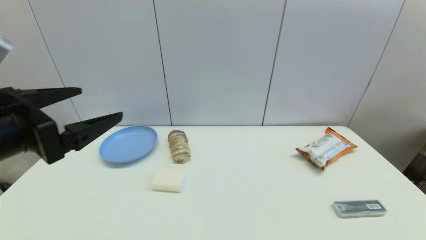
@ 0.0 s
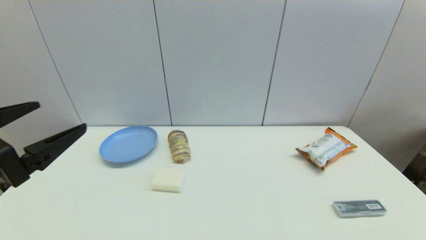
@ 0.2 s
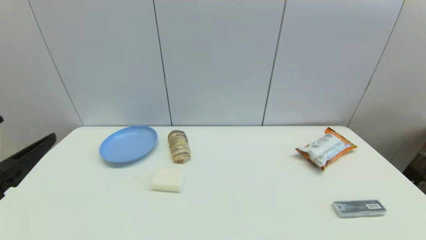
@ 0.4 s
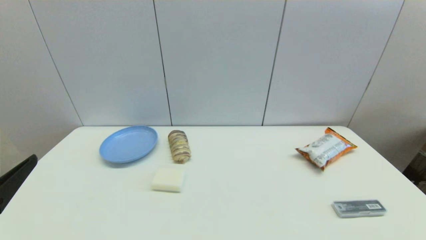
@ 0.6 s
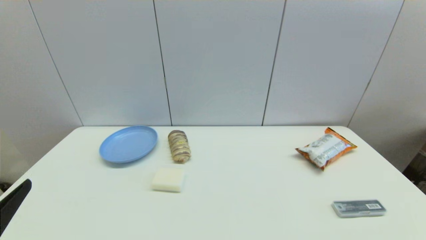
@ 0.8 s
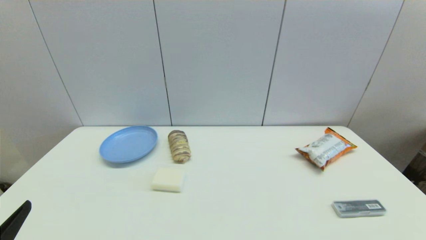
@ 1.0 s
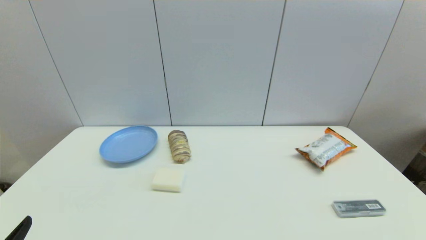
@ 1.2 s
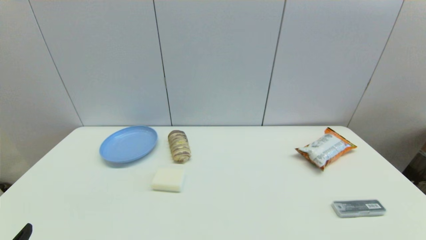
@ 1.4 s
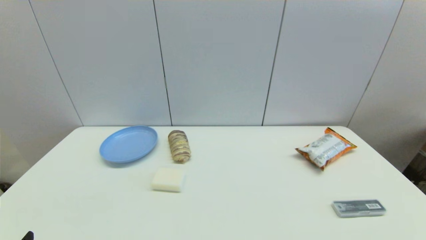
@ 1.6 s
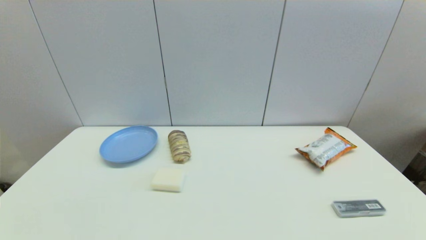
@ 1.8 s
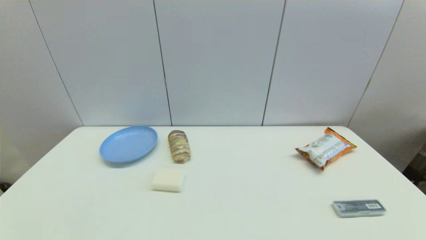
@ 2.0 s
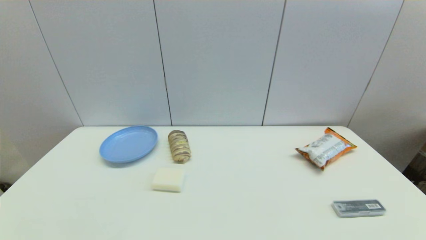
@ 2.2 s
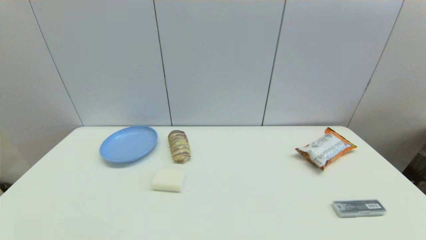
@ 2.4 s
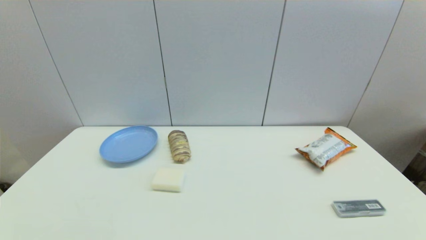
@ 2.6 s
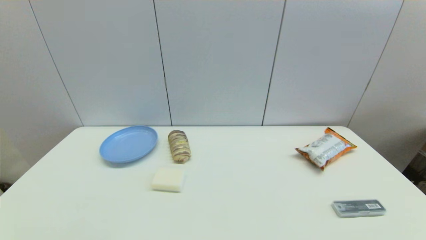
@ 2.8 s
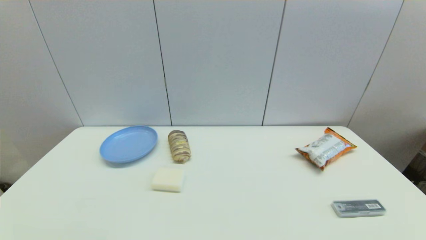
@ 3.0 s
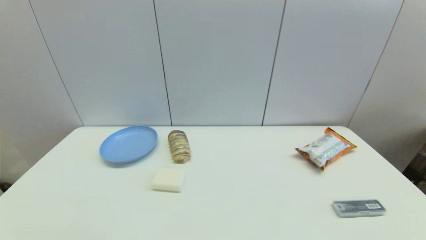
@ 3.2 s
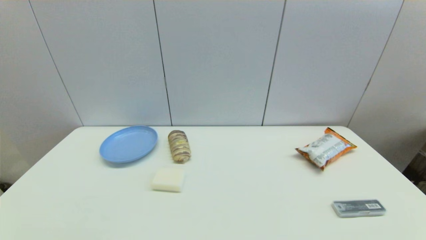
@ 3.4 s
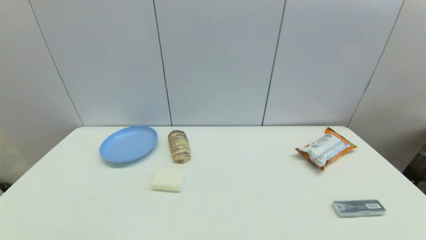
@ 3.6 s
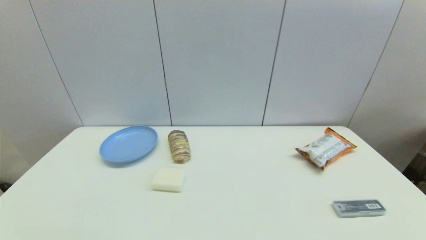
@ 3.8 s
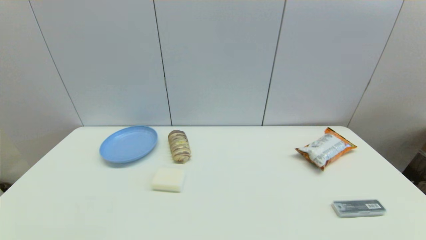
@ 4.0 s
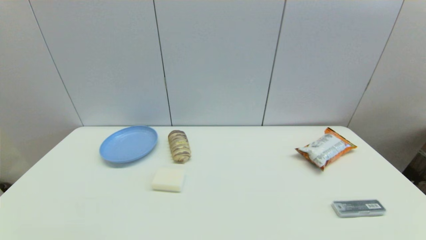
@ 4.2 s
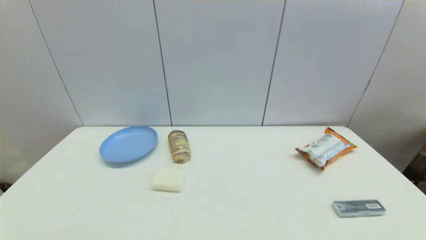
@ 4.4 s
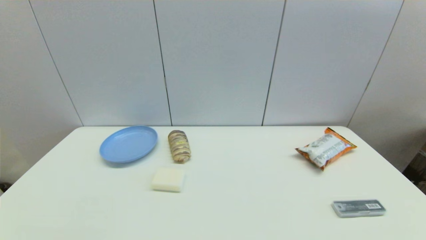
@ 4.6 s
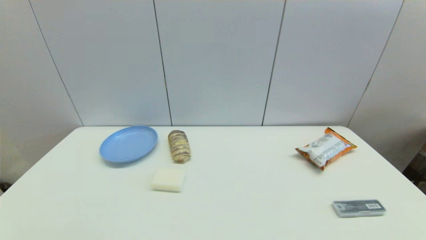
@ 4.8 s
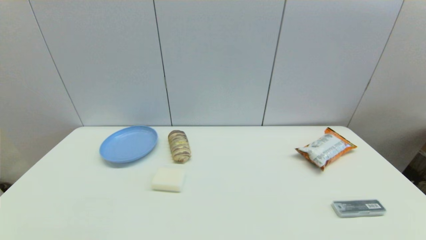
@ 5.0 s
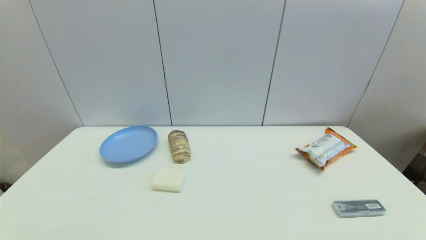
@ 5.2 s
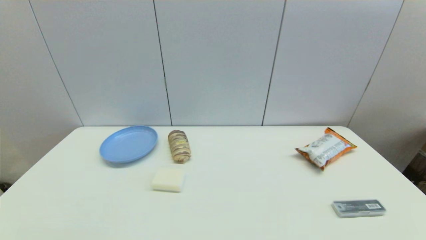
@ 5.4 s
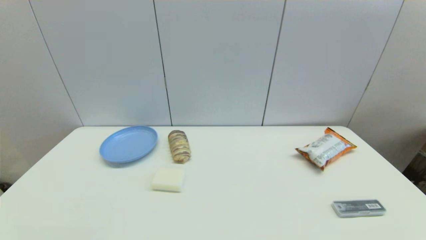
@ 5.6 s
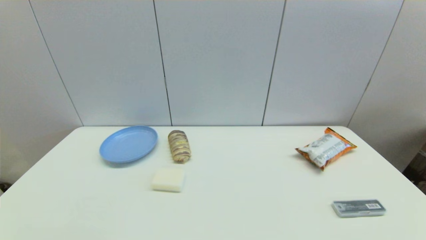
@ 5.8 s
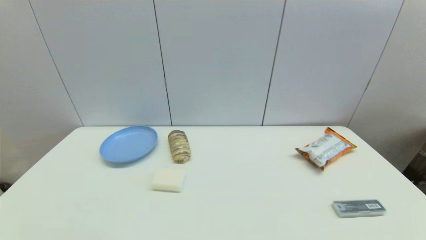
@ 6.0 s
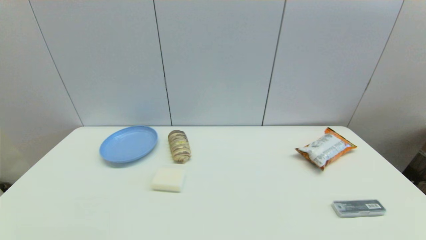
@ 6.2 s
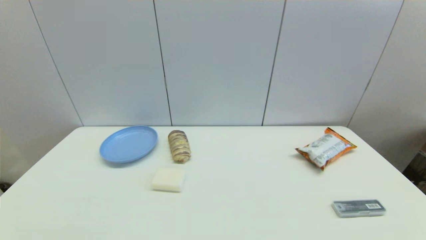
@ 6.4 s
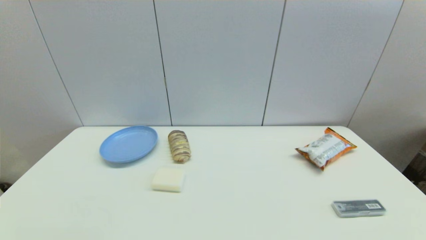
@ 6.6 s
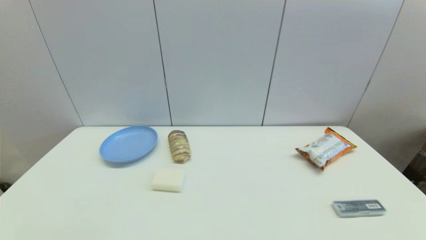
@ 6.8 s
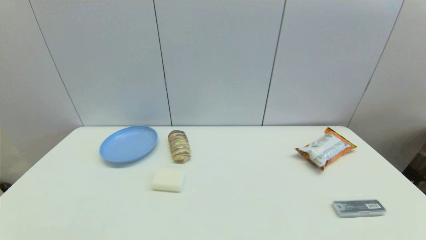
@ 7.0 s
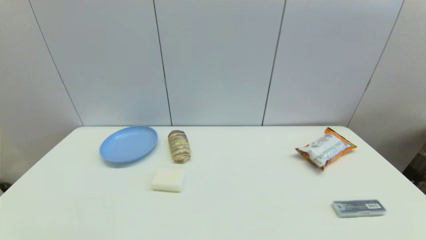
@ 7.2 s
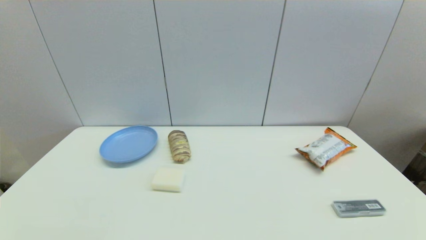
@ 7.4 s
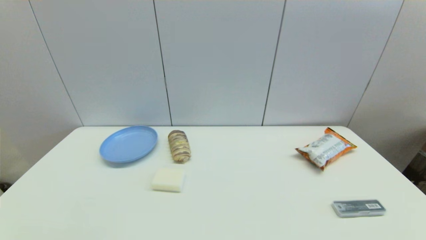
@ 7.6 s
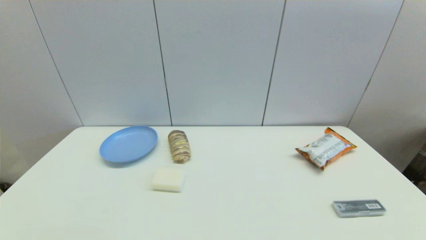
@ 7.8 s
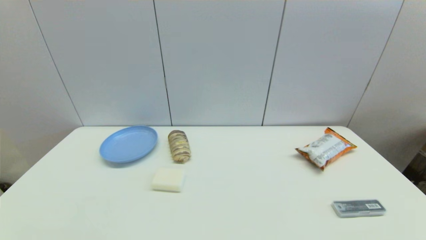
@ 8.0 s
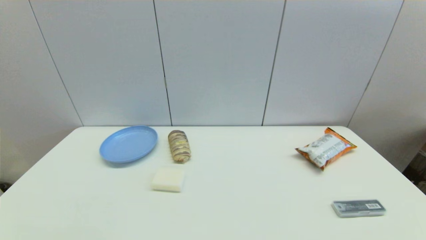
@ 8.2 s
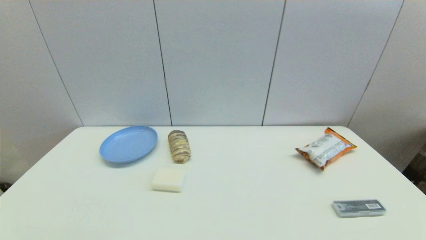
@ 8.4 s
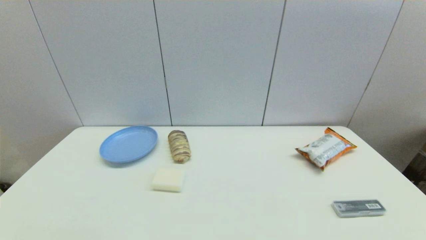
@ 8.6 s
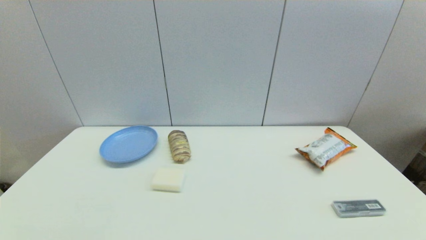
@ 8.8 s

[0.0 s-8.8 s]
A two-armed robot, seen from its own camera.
0.0 to 1.4 s: The left gripper heads downward, backward and to the left, covering about 20 cm.
3.0 to 8.8 s: Neither gripper changes place.
